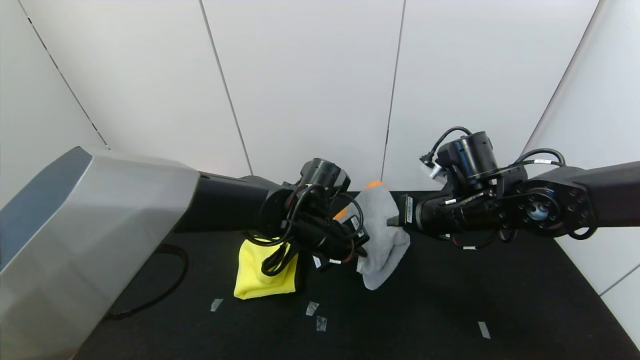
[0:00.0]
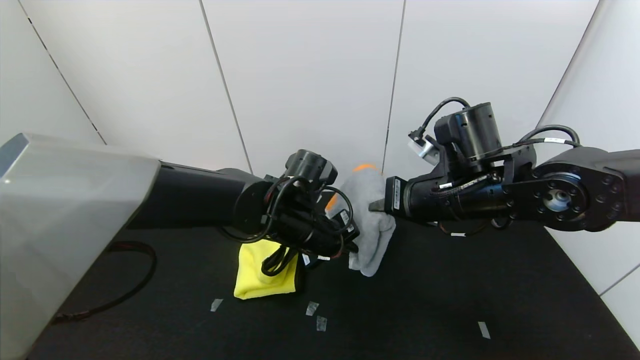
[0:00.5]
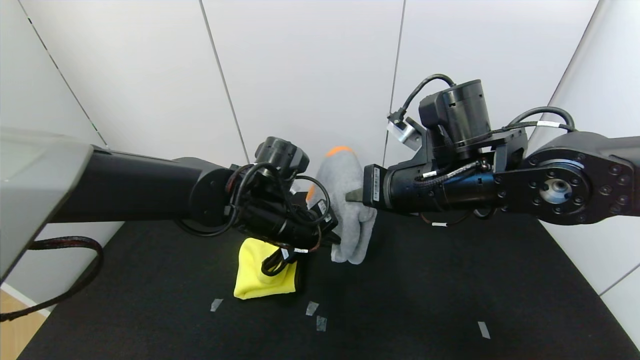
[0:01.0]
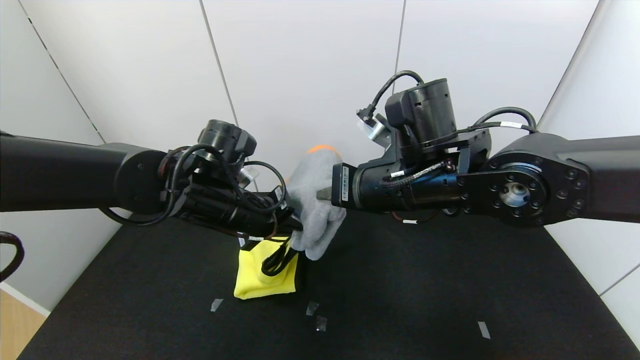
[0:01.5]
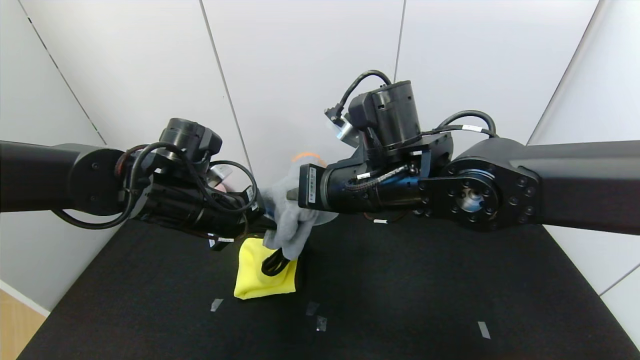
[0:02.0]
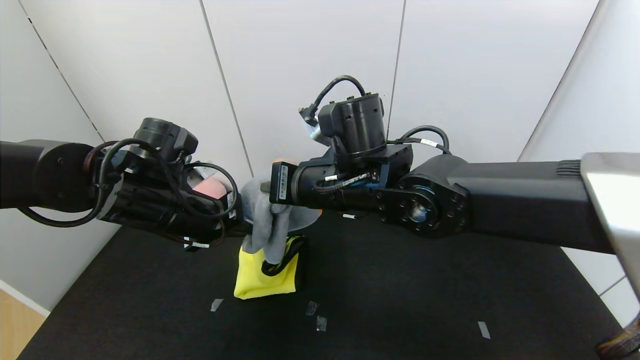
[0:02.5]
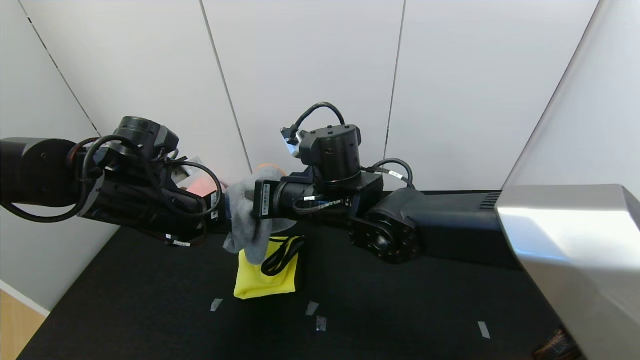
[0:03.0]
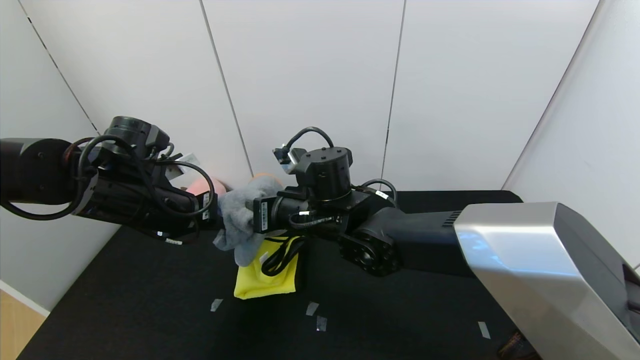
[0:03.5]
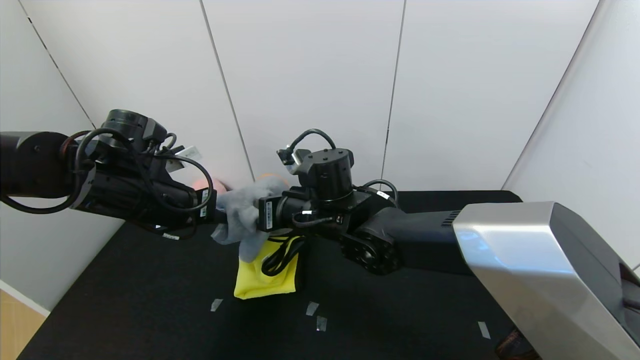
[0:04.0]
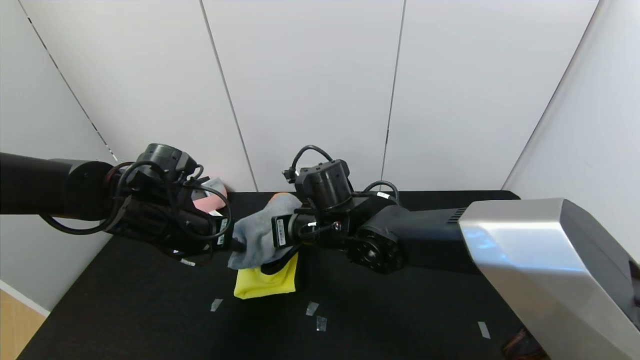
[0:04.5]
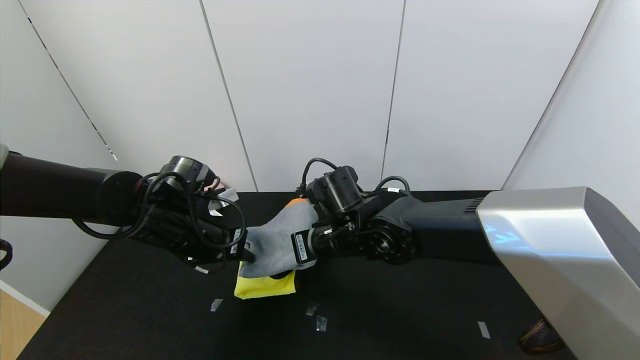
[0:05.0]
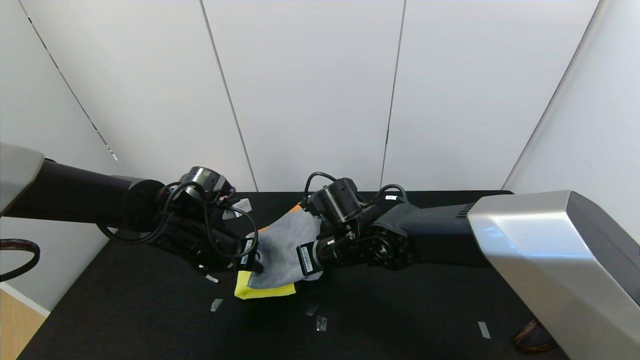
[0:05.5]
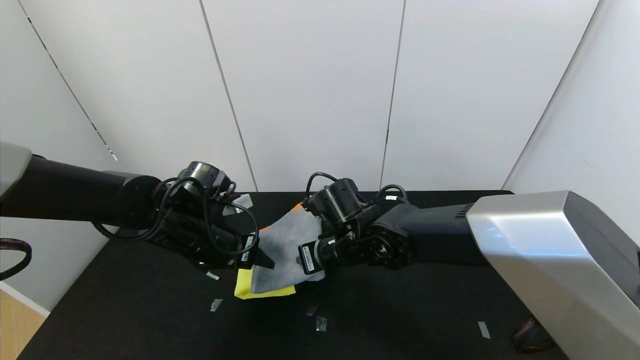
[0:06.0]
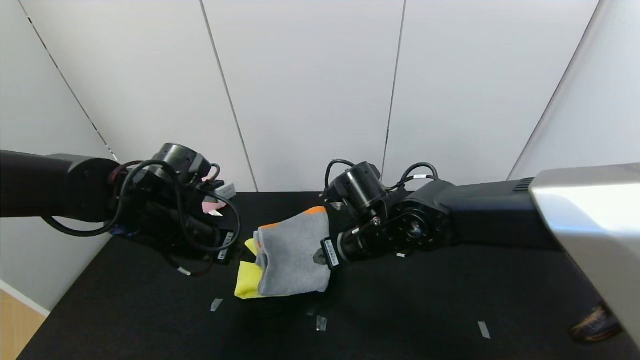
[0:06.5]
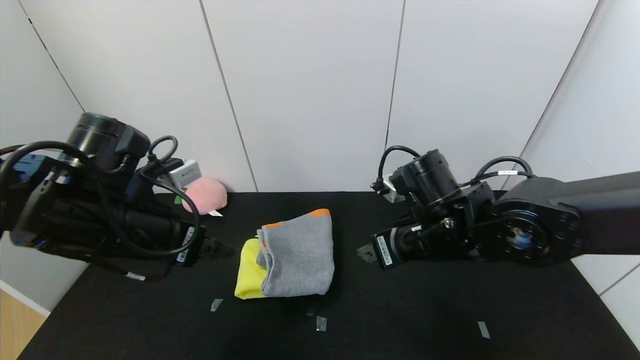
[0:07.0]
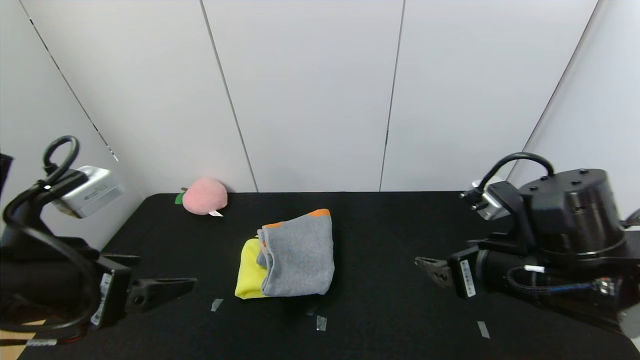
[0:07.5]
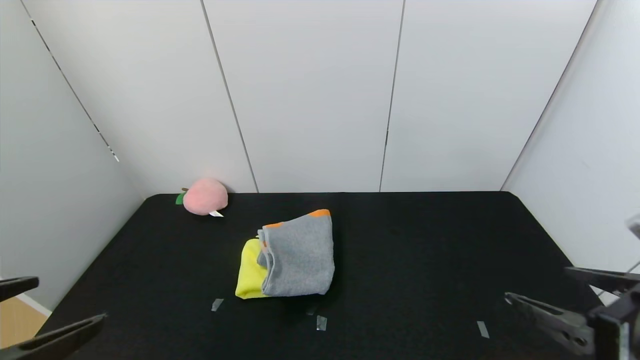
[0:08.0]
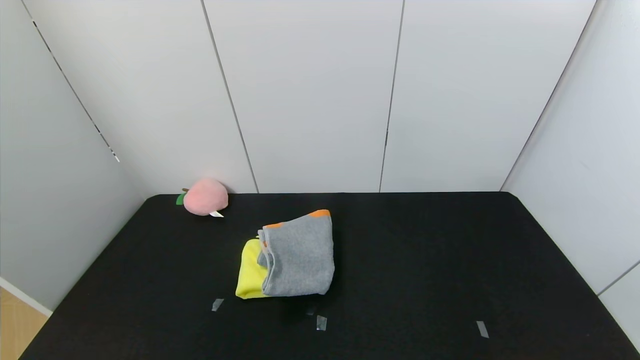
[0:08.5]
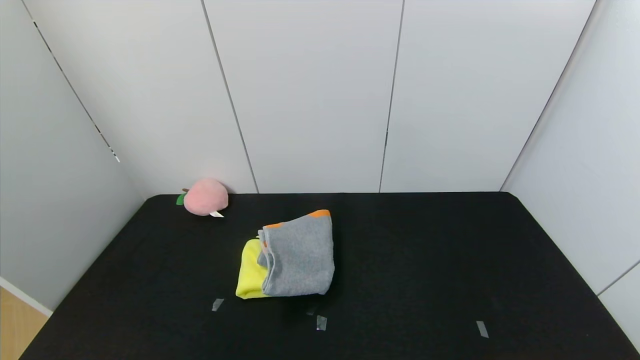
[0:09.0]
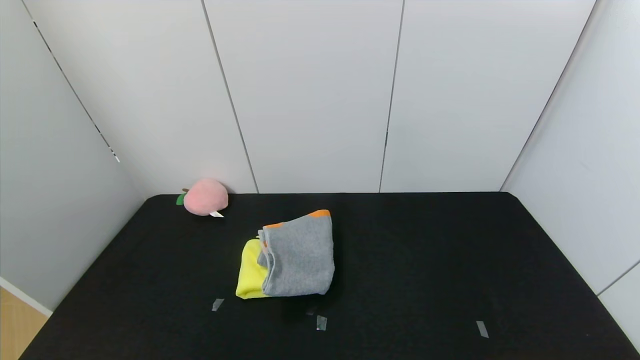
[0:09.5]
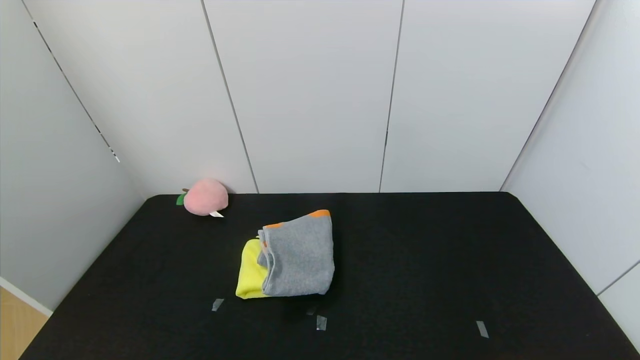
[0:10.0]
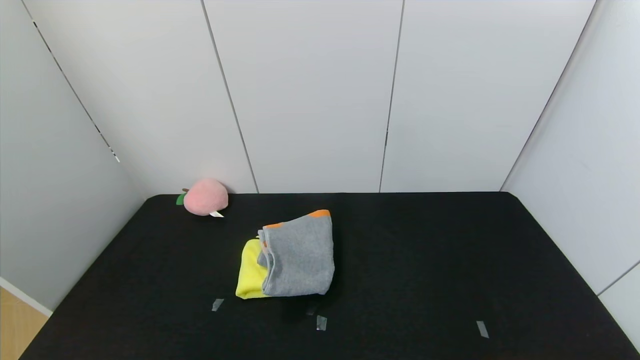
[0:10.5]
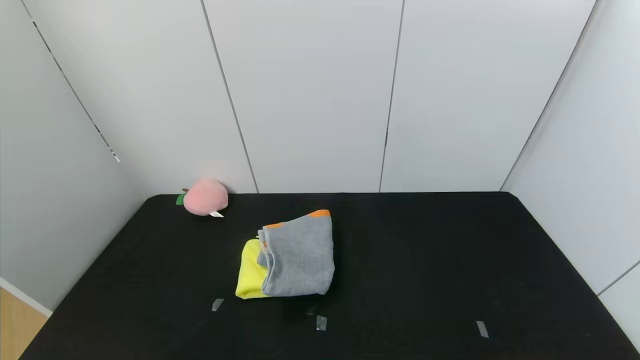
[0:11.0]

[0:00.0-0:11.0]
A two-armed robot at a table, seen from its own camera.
Task of the whole recording: Use the gripper to fold the yellow towel and grey towel in half twice,then put the yellow towel on the grey towel.
Step, 0:00.0 to 0:06.5: Place the grey towel on the yellow towel with the right gripper.
0:00.0 to 0:02.0: The right gripper is displaced to the left and upward by some 15 cm; the left gripper shifts approximately 15 cm to the left.
0:02.0 to 0:03.5: The right gripper travels downward and to the left by approximately 10 cm. The left gripper shifts about 5 cm to the left.
0:03.5 to 0:05.5: The grippers both shift downward by some 5 cm.
0:05.5 to 0:07.5: The left gripper is displaced backward and upward by roughly 20 cm, and opens its fingers. Meanwhile the right gripper shifts some 25 cm to the right, backward and upward, and opens its fingers.
0:07.5 to 0:09.0: The right gripper goes some 30 cm backward and to the right. The left gripper travels backward by roughly 25 cm.

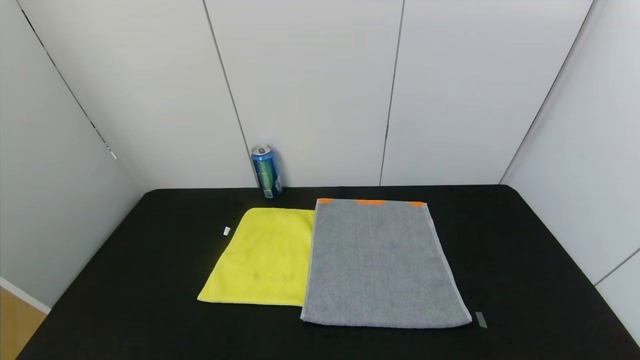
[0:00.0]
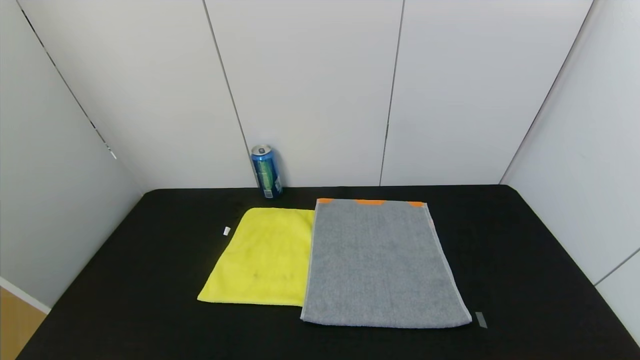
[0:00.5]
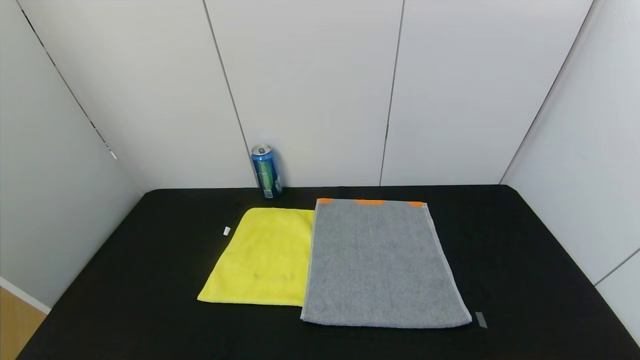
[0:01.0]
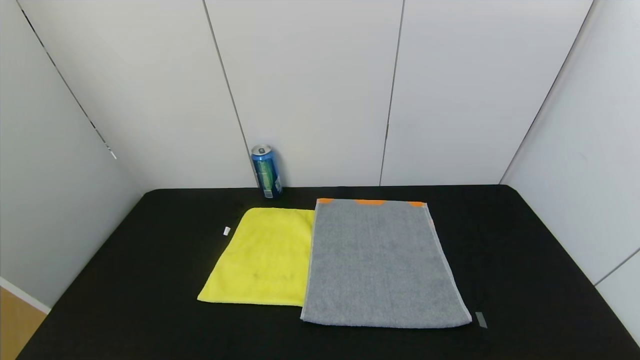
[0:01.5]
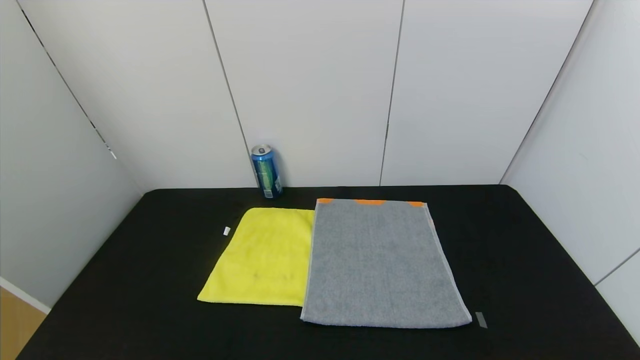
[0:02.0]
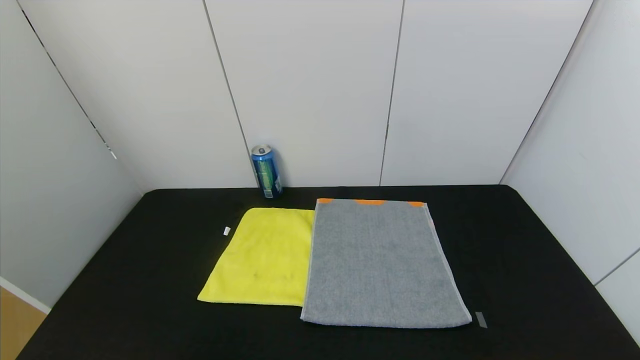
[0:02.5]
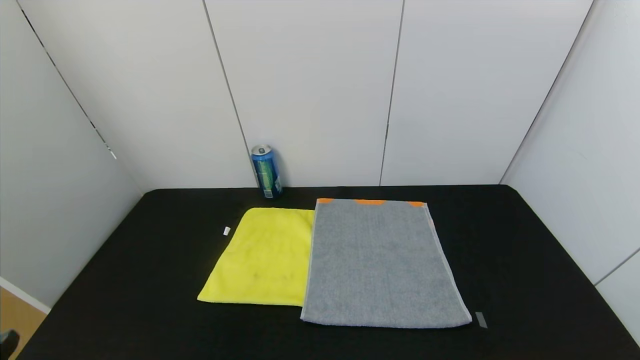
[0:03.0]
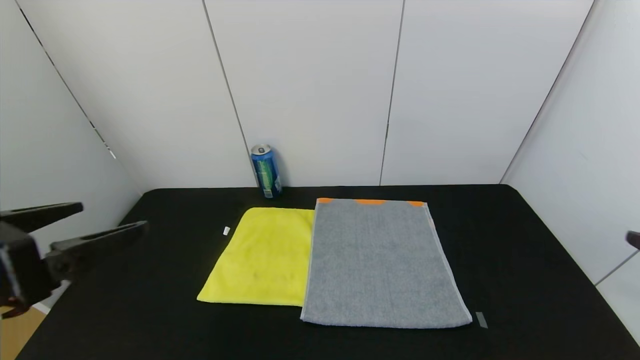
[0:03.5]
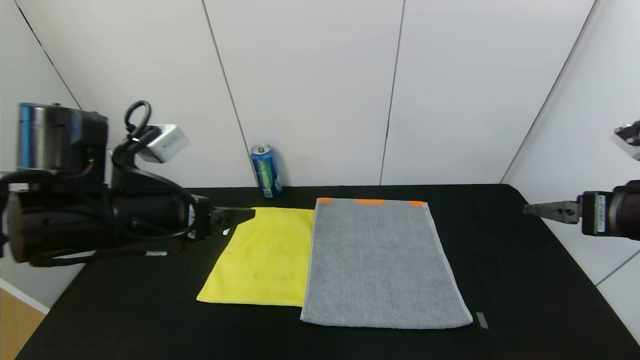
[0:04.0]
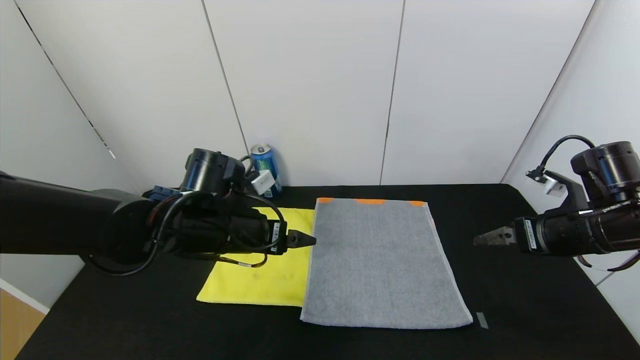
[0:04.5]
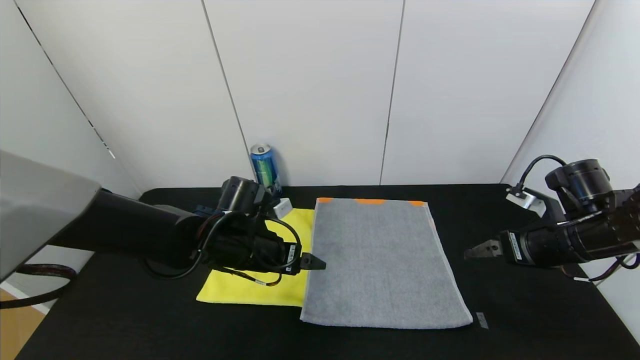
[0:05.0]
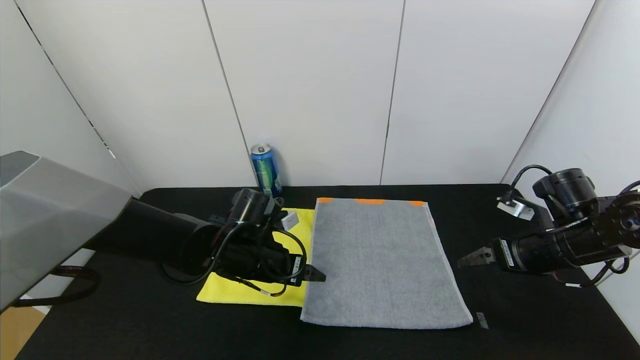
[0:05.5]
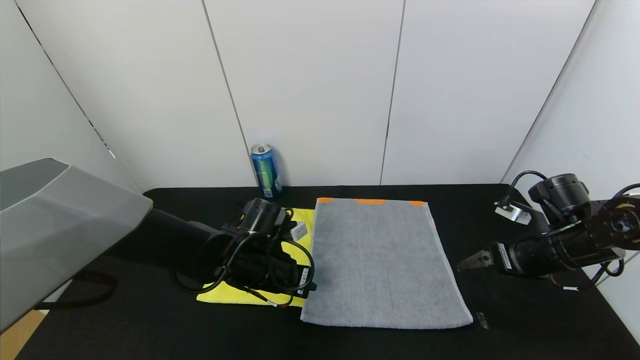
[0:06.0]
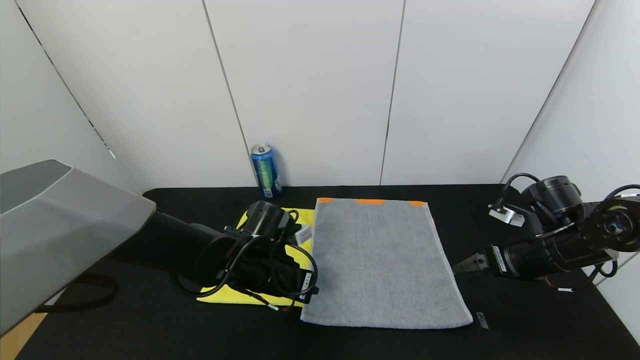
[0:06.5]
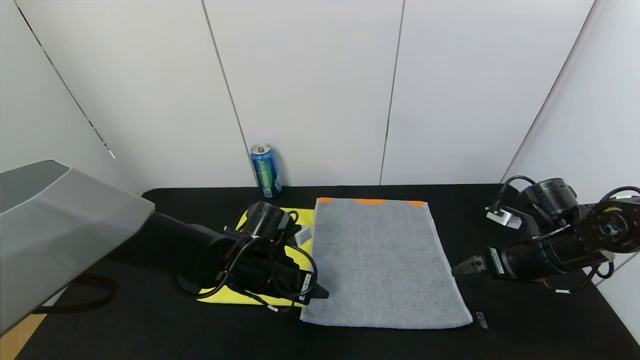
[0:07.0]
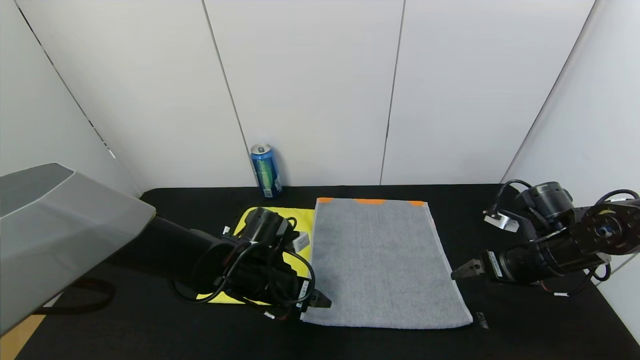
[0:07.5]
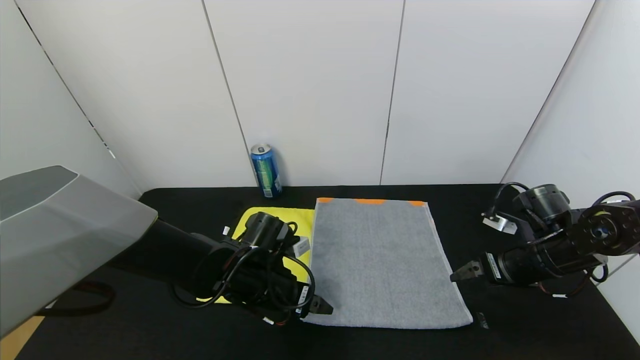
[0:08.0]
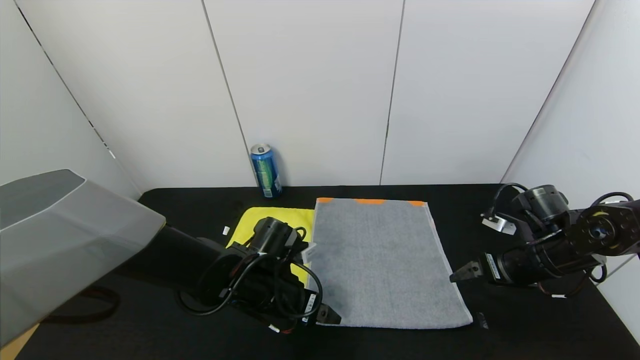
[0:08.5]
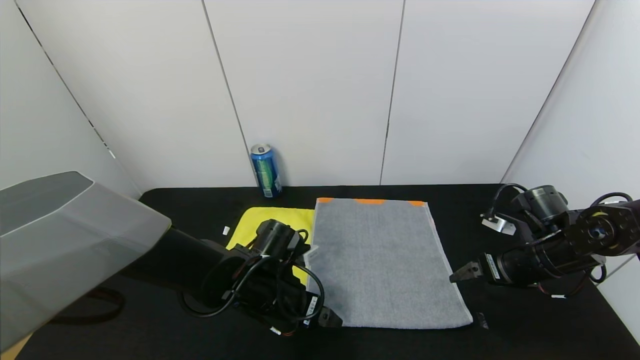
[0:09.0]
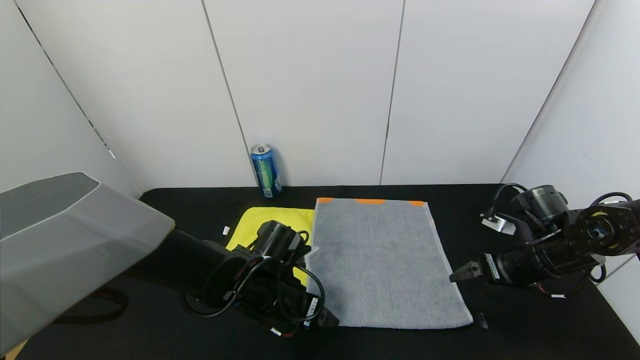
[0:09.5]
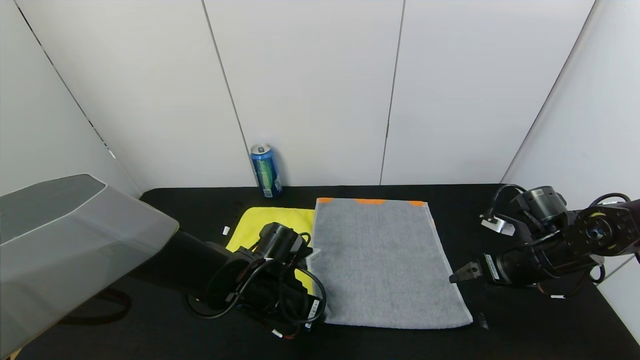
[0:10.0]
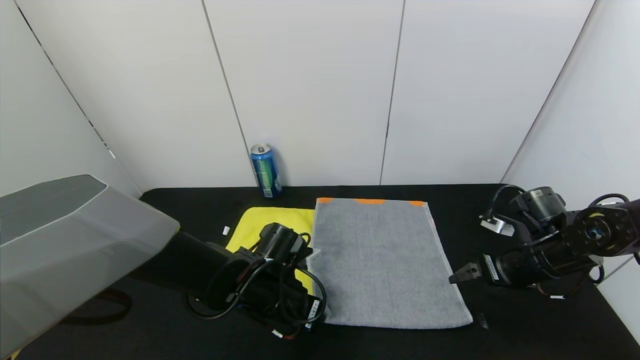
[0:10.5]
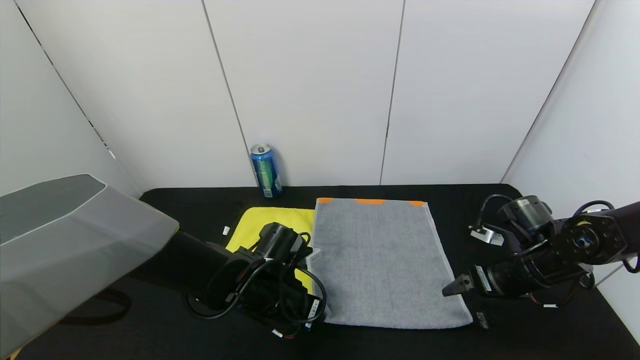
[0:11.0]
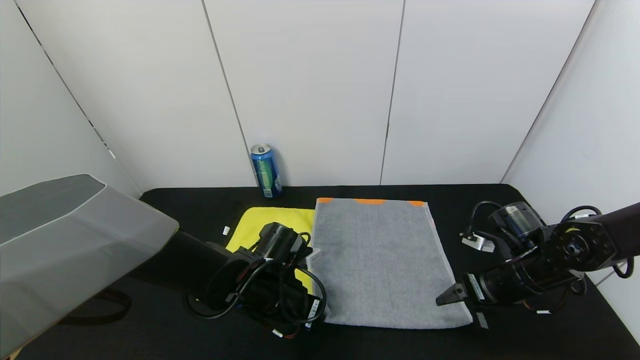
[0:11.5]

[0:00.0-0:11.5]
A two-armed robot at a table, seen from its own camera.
Task of the whole recording: Use the gripper to fold the yellow towel and grey towel in half twice,then put the yellow towel on the grey towel.
0:00.0 to 0:02.0: Both grippers stay about where they are.
0:02.0 to 0:04.0: Both grippers travel together forward and upward, roughly 30 cm.
0:04.0 to 0:06.0: The right gripper shifts about 15 cm downward and forward. The left gripper moves downward, to the right and forward, about 20 cm, and closes its fingers.
0:06.0 to 0:07.5: The left gripper opens.
0:07.5 to 0:09.5: The grippers make only small movements.
0:09.5 to 0:11.5: The left gripper closes up.
